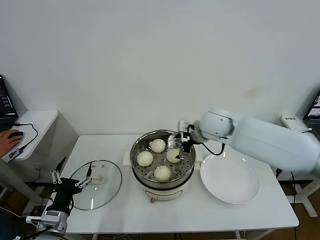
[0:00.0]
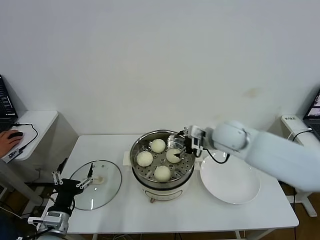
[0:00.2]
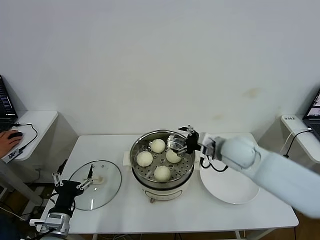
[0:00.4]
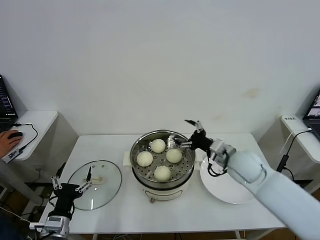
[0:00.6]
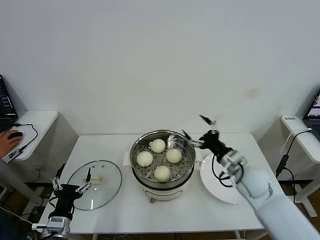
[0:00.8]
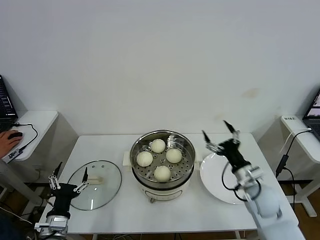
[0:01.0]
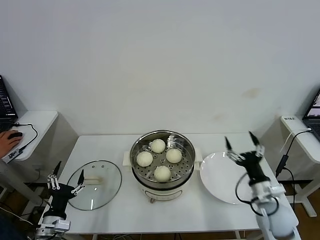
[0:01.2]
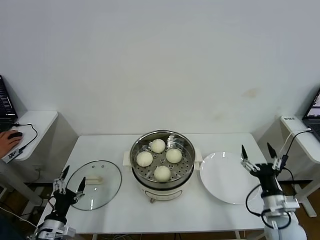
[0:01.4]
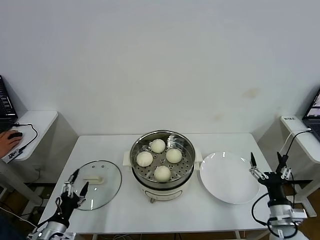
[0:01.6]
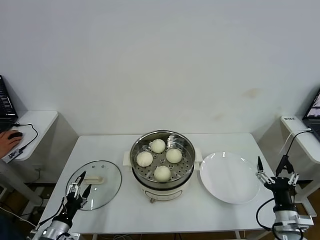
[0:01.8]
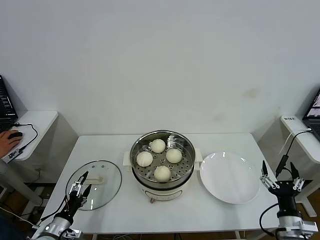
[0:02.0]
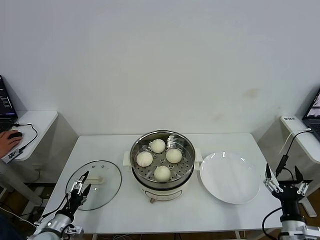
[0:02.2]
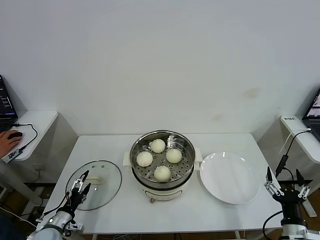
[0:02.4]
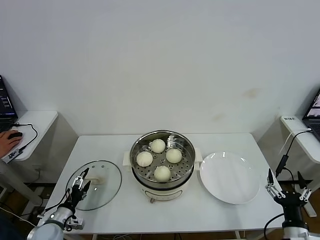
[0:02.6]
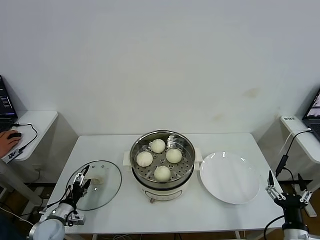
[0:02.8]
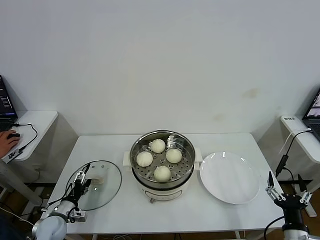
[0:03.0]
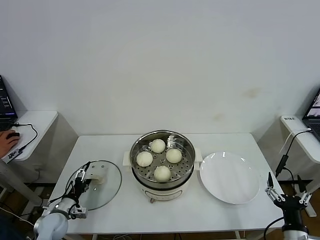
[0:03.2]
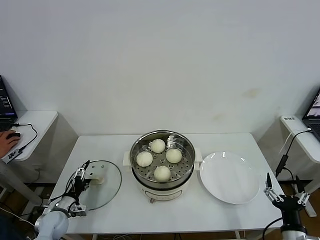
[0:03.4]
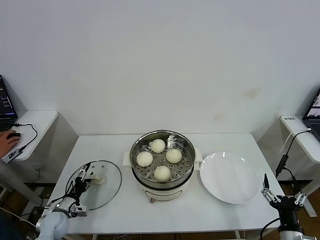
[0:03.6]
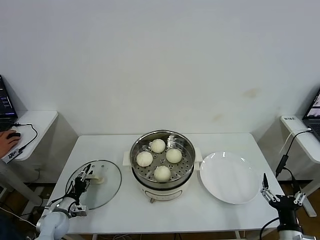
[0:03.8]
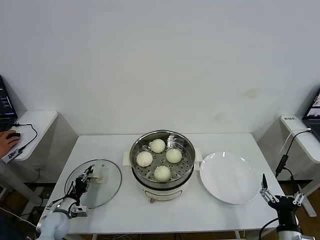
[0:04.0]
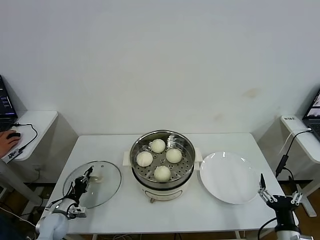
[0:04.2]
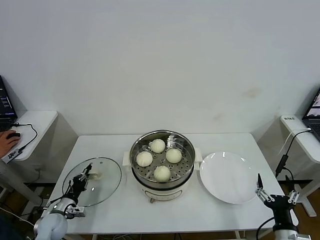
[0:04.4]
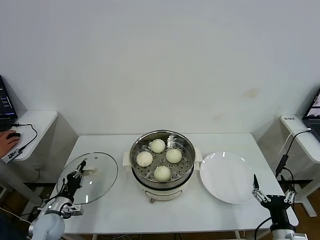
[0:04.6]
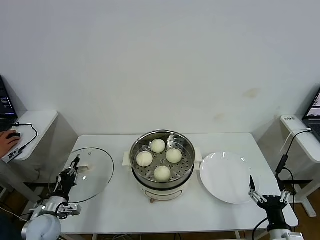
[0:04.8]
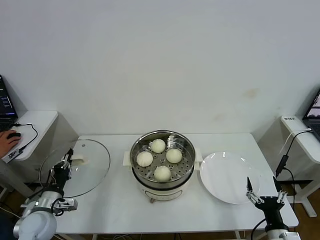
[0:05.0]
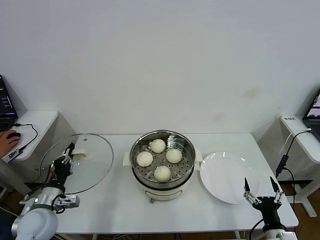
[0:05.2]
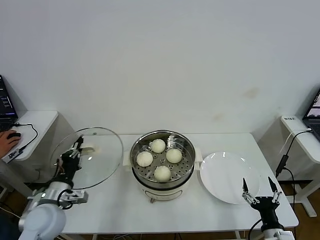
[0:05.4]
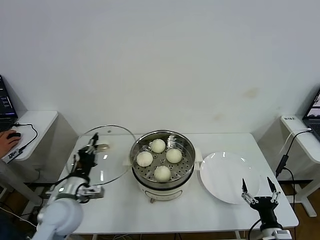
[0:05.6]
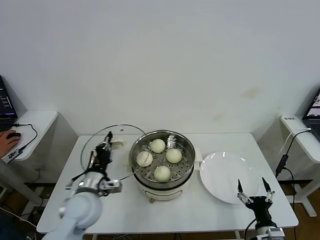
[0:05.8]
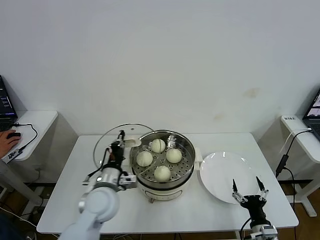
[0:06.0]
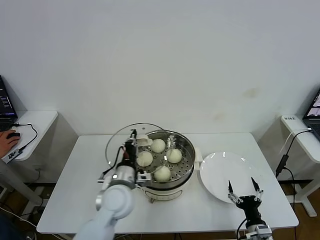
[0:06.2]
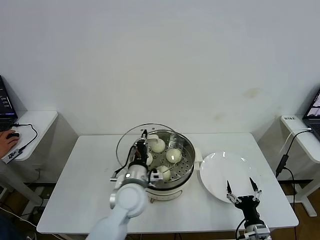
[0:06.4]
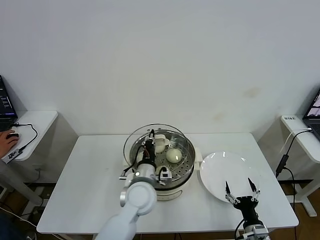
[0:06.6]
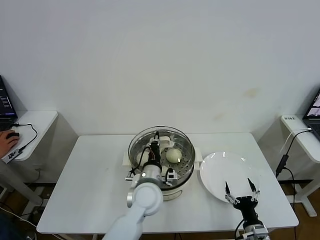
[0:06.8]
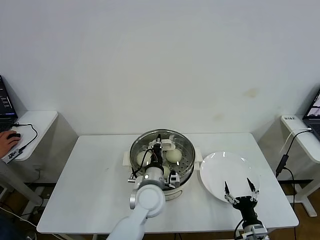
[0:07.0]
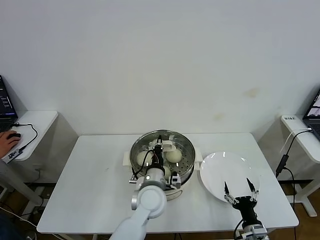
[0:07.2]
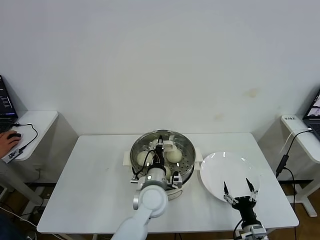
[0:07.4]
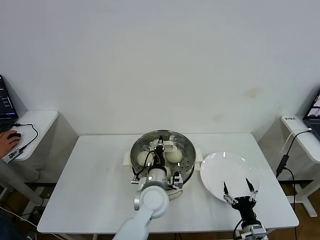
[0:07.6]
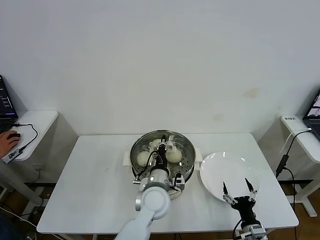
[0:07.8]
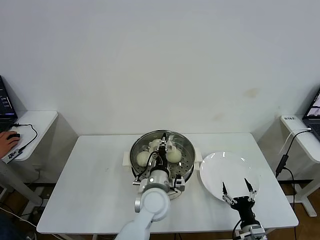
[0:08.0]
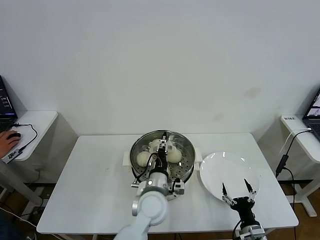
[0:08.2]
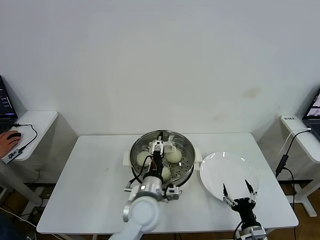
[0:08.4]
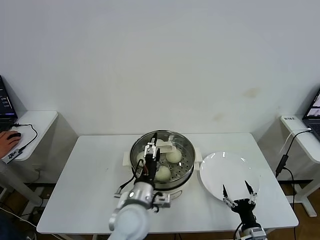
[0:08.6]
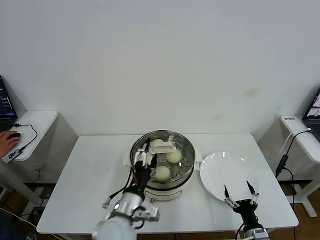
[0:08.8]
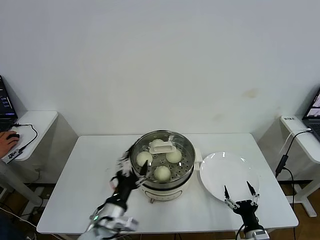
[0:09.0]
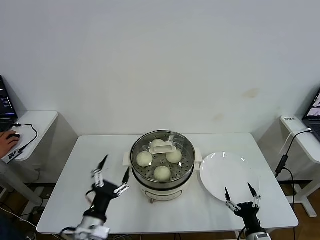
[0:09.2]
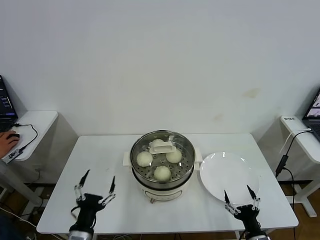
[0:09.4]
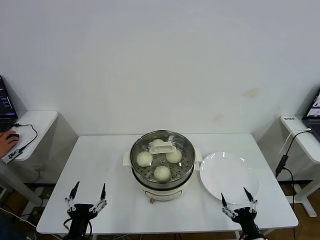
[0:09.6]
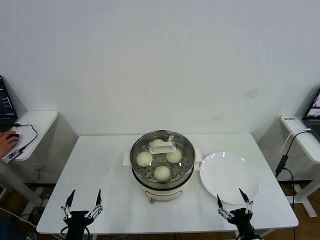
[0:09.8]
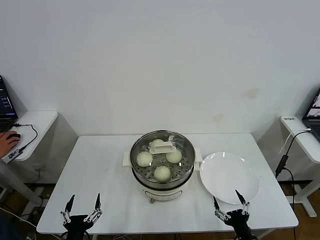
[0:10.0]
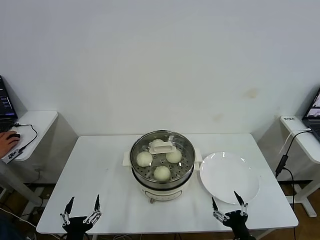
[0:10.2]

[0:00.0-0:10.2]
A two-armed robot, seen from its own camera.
Task of the whole recording: take steamed baozi put them in steamer then cover it.
Step, 0:00.0 to 0:04.2: Grasp the pot lid with left gripper.
Step, 0:04.4 to 0:07.8: Place the pot lid on the steamer with left gripper.
0:00.0 to 0:01.4: The right gripper is displaced backward, downward and to the right by roughly 35 cm, while the left gripper is displaced downward by approximately 5 cm.
0:01.4 to 0:03.0: The left gripper moves forward and downward, about 10 cm; the right gripper is displaced backward by some 10 cm.
0:03.0 to 0:04.4: The left gripper closes.
0:04.4 to 0:05.8: The right gripper ends up roughly 5 cm from where it was; the left gripper is displaced upward and to the right by some 25 cm.
0:05.8 to 0:07.2: The left gripper moves to the right, some 20 cm.
0:07.2 to 0:08.8: The left gripper is displaced backward and to the left by about 10 cm, and opens up.
0:08.8 to 0:10.2: The right gripper moves roughly 5 cm; the left gripper travels to the left, backward and downward by about 25 cm.
